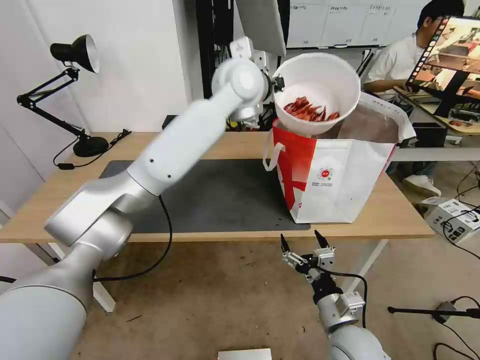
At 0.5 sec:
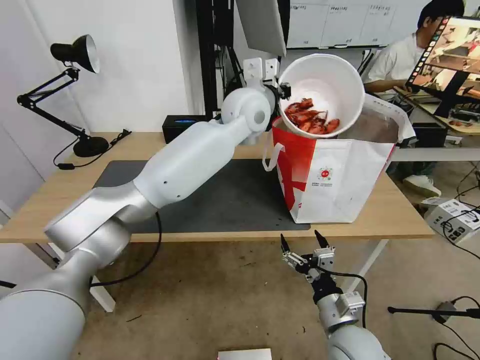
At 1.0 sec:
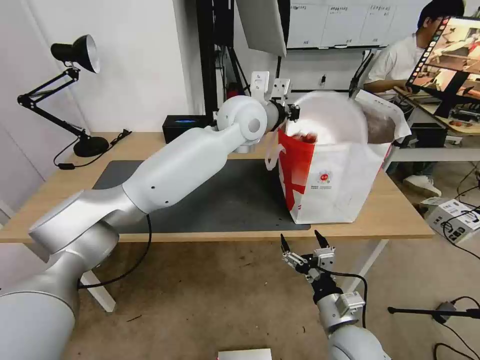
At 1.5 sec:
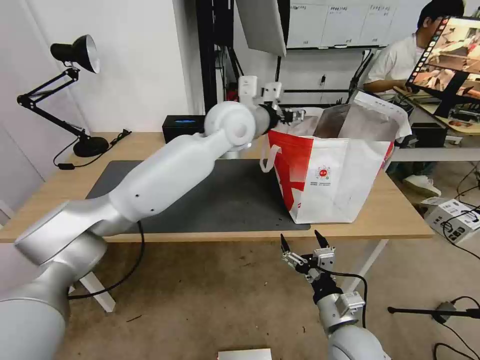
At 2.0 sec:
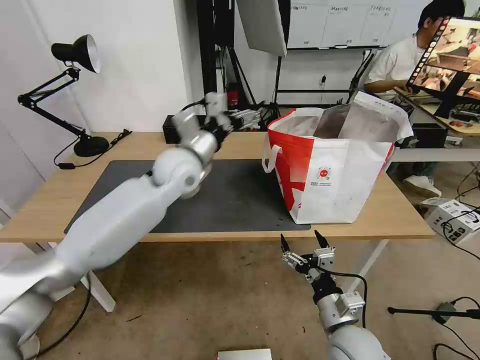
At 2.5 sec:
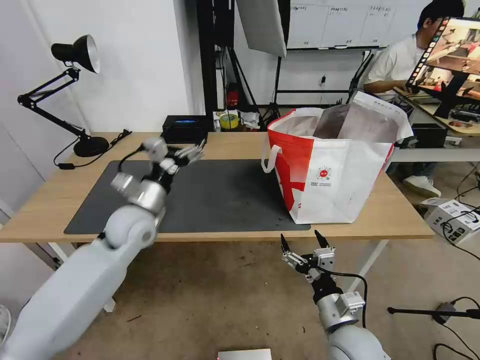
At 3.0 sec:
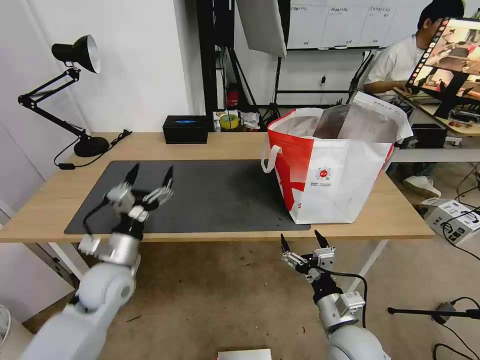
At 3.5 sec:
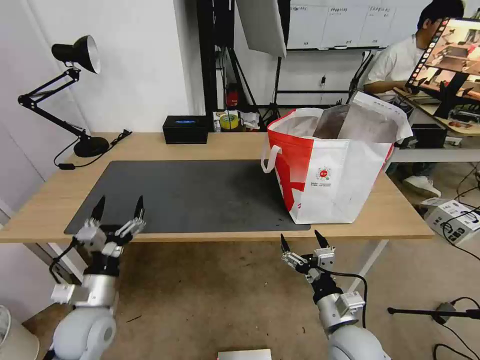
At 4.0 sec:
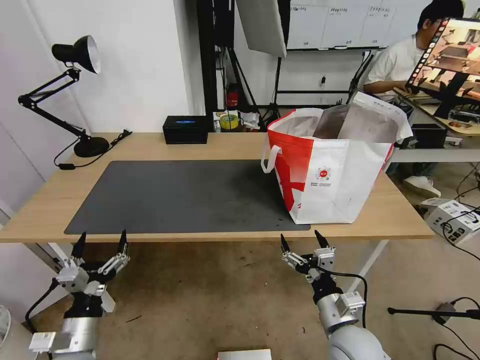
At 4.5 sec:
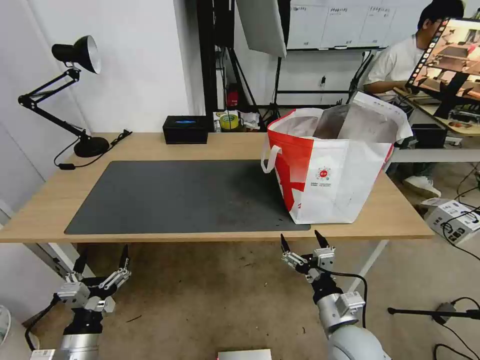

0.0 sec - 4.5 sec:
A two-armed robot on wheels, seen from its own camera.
Task of the whole recording: Pick up the trash from the table and place it into the takeout bag.
0.0 sec - 2.0 sec: The left gripper goes about 20 cm downward, to the left and backward, and opens.
2.0 sec - 4.5 sec: The left gripper travels backward, downward and to the left by approximately 50 cm.

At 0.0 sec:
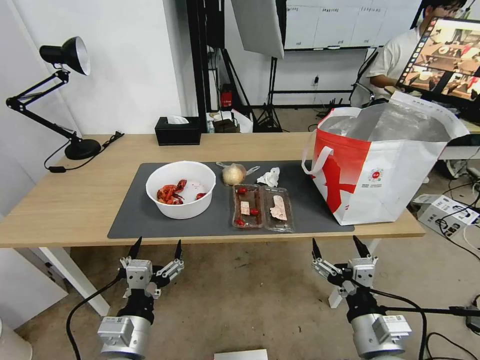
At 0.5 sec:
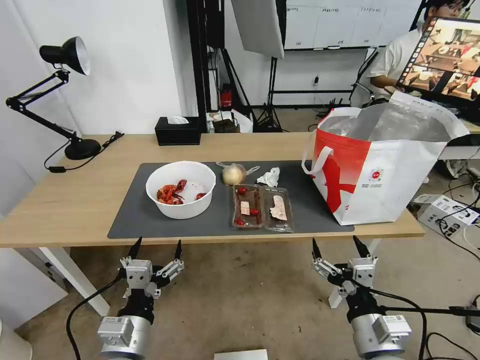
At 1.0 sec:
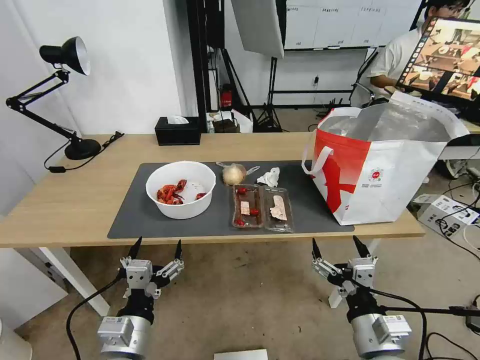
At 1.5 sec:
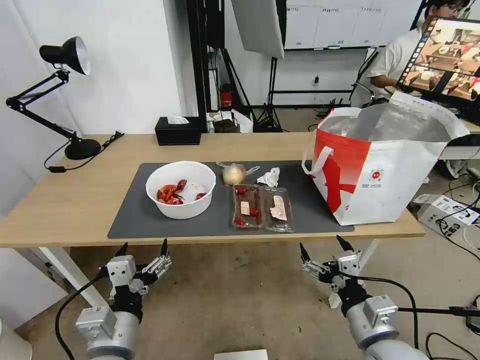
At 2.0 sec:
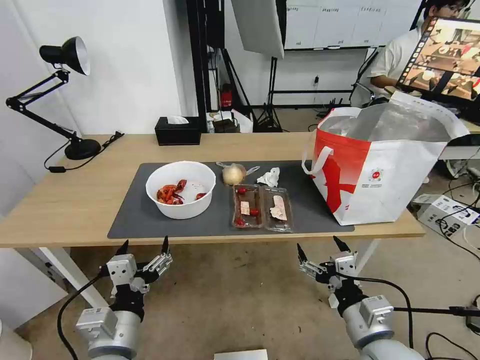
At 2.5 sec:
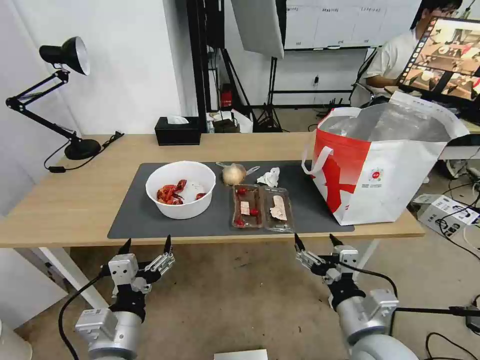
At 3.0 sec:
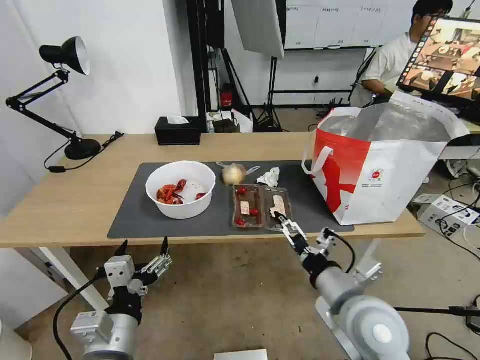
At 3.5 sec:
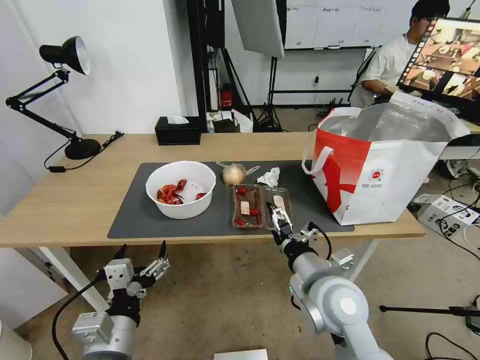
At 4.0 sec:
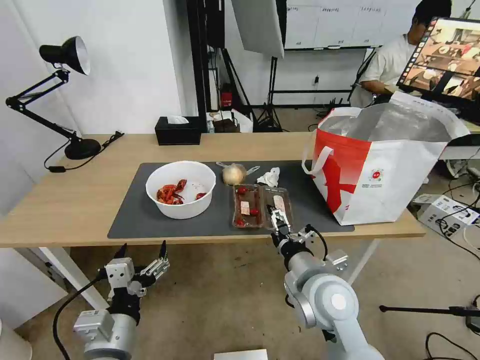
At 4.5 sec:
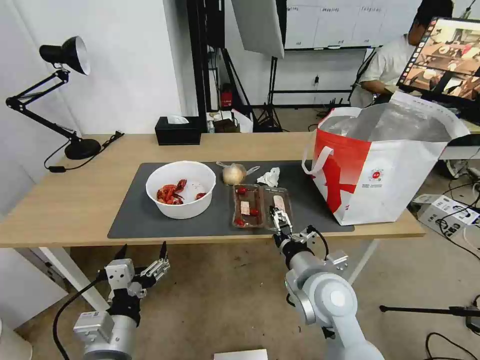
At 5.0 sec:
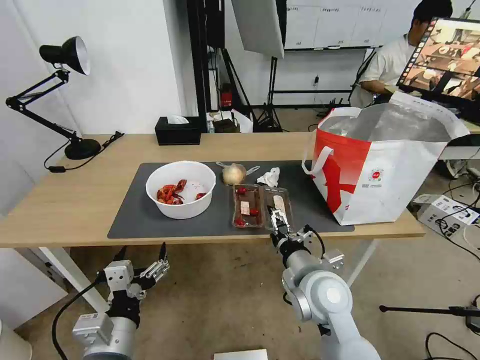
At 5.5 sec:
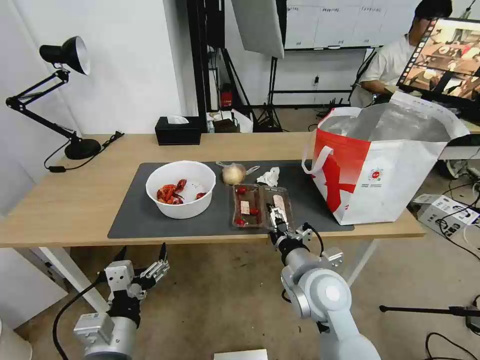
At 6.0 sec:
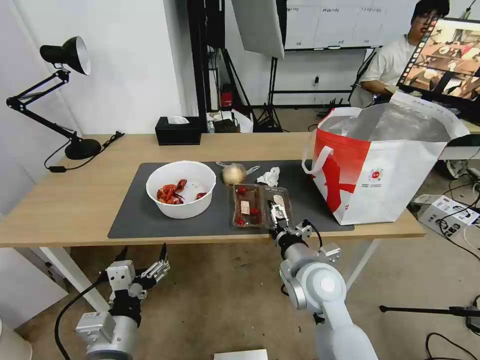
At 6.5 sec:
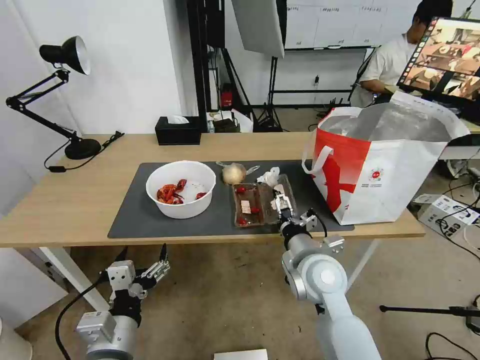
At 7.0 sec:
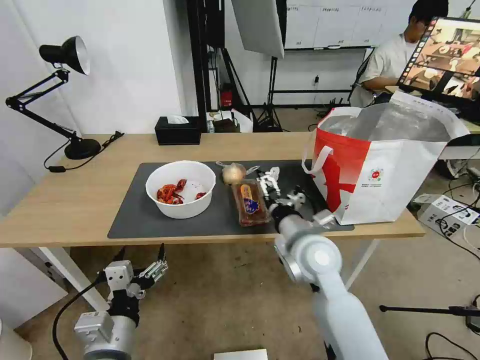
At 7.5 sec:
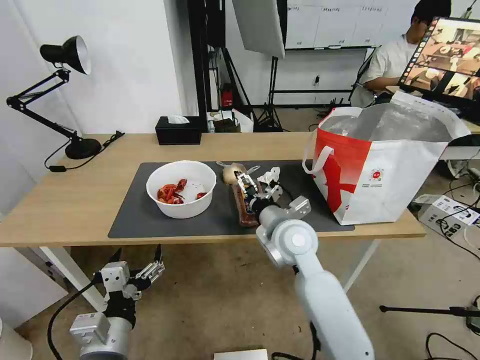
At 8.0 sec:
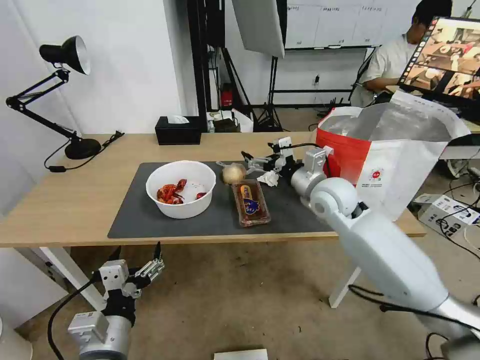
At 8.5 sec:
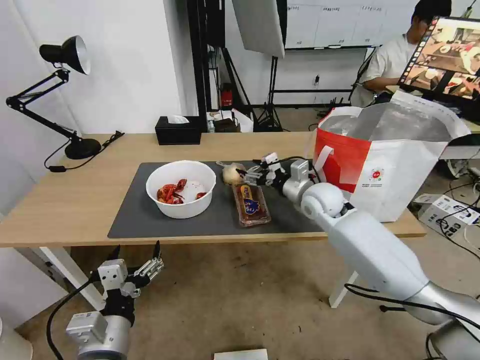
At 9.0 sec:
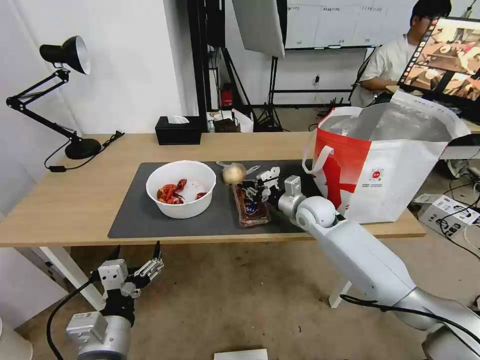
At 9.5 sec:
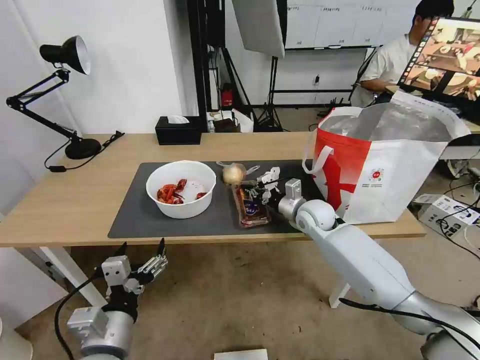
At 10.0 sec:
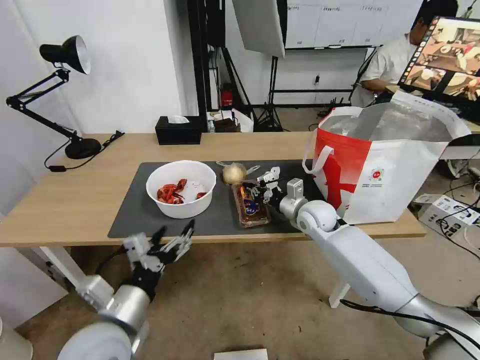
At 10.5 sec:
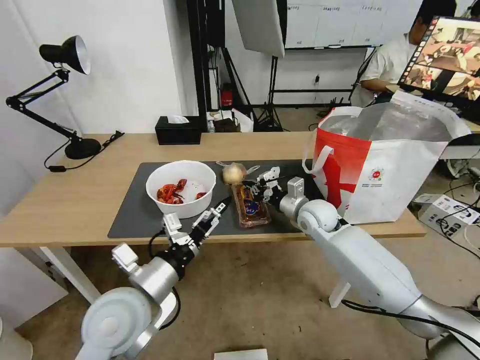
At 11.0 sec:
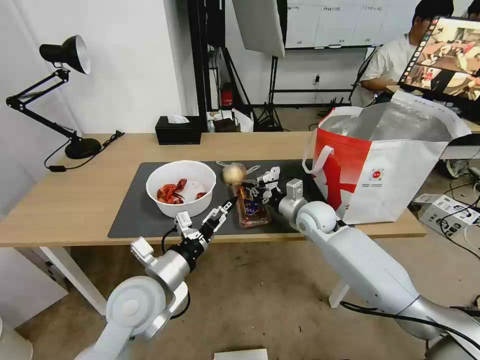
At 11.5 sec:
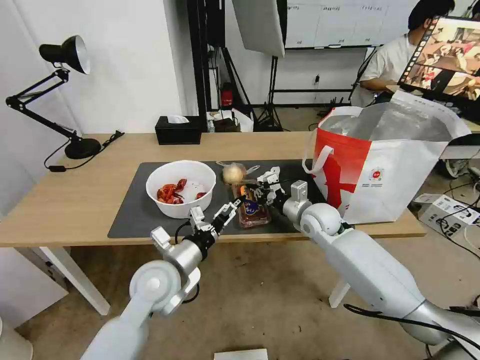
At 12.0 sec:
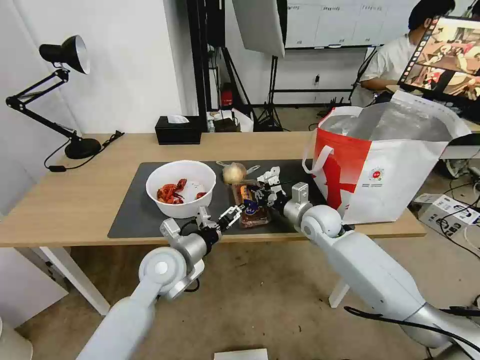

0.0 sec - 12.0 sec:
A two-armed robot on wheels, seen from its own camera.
Task of the whole recording: Pick up the trash from the table and place it into the takeout bag.
2.0 sec - 4.0 sec: The right gripper is displaced forward and to the left by approximately 15 cm.
4.0 sec - 6.0 sec: The grippers make only small movements.
6.0 sec - 8.0 sec: The right gripper shifts approximately 20 cm forward and upward.
8.0 sec - 10.0 sec: The left gripper ends up roughly 5 cm from where it was. The right gripper is displaced downward by some 10 cm, and closes.
10.0 sec - 12.0 sec: The left gripper moves forward and to the right, approximately 15 cm.

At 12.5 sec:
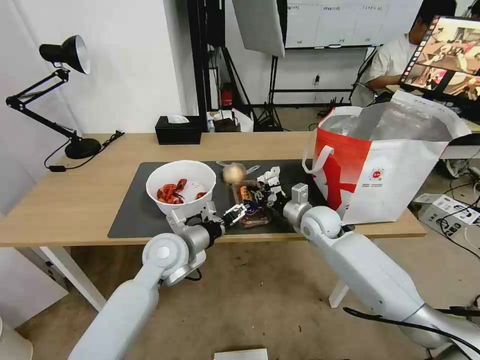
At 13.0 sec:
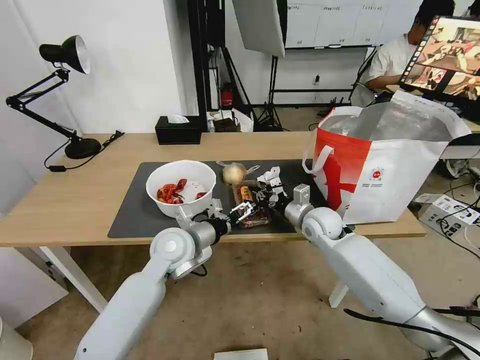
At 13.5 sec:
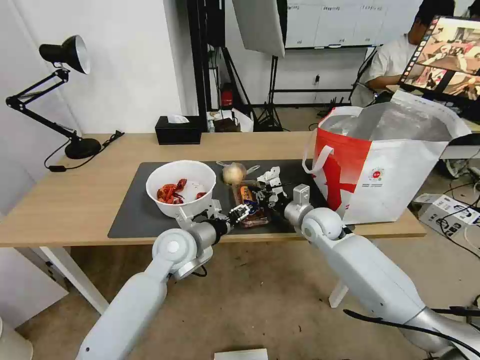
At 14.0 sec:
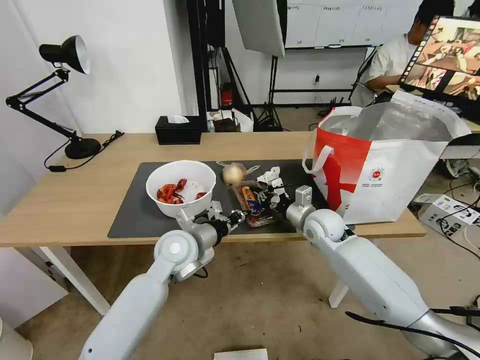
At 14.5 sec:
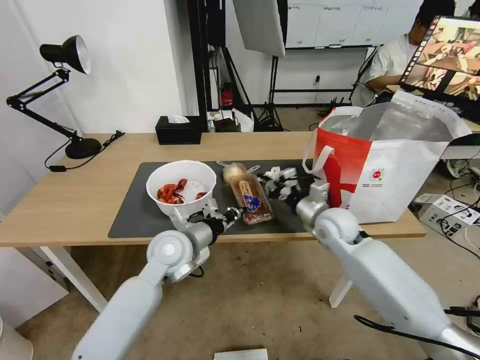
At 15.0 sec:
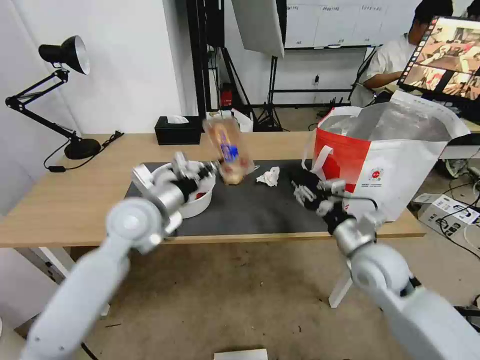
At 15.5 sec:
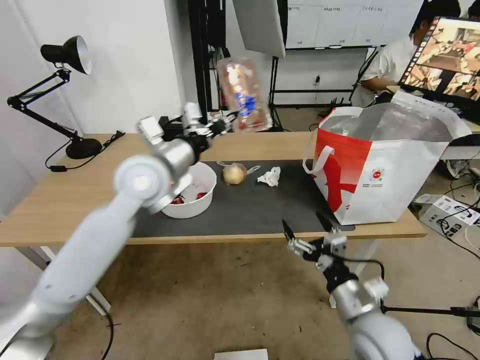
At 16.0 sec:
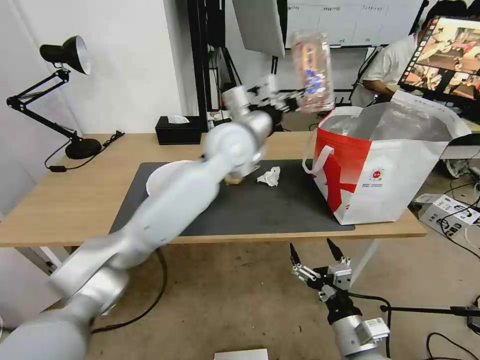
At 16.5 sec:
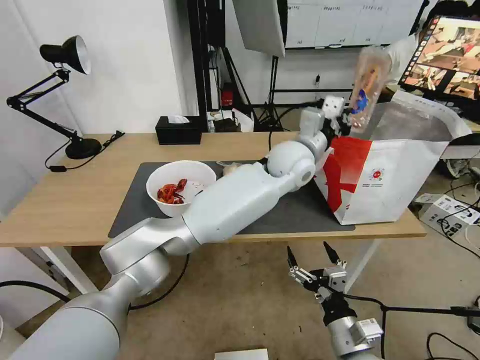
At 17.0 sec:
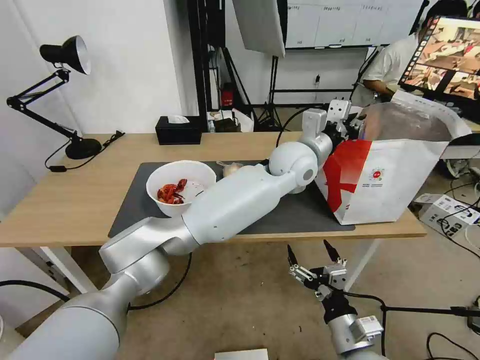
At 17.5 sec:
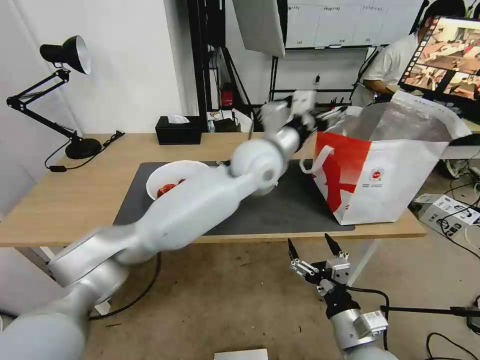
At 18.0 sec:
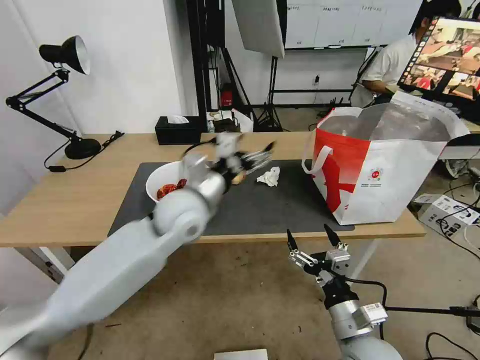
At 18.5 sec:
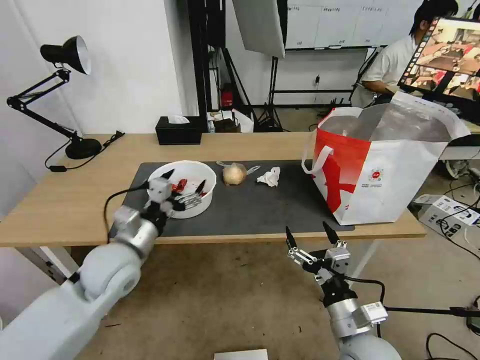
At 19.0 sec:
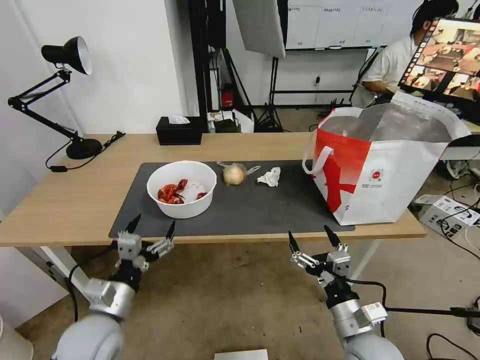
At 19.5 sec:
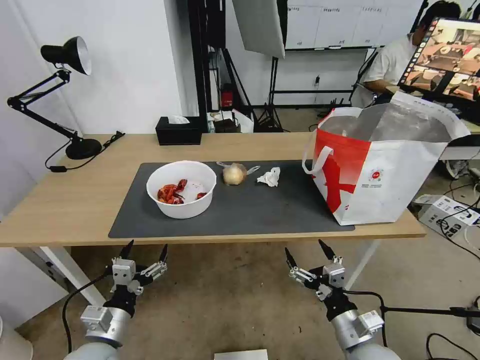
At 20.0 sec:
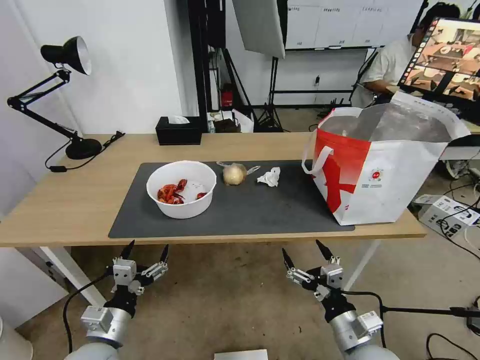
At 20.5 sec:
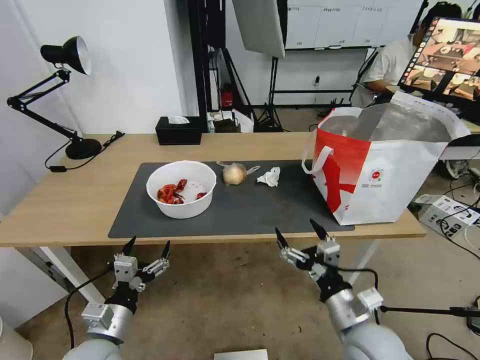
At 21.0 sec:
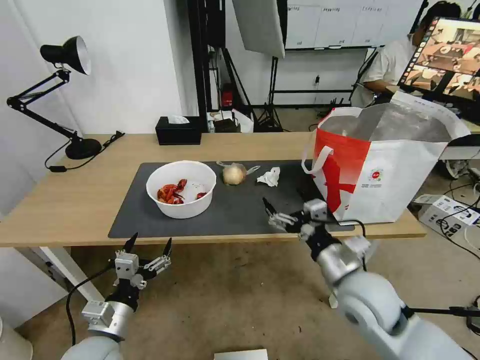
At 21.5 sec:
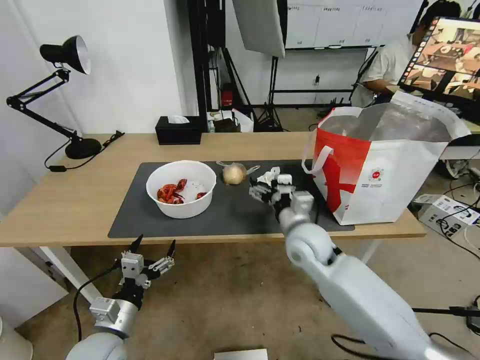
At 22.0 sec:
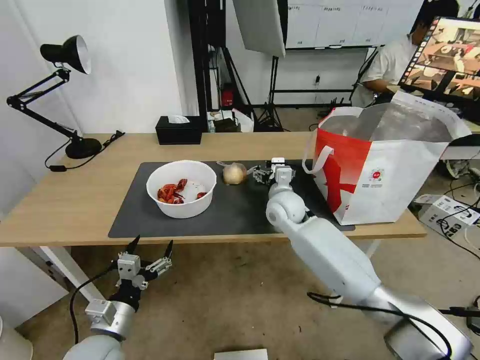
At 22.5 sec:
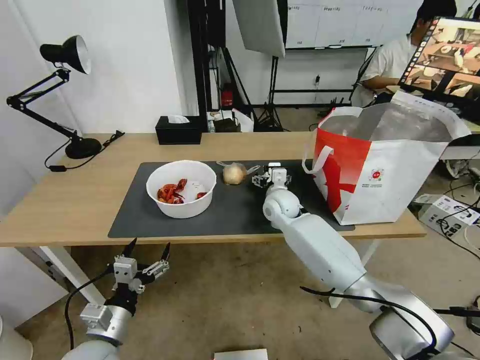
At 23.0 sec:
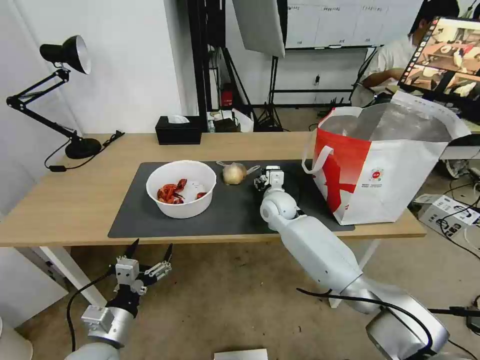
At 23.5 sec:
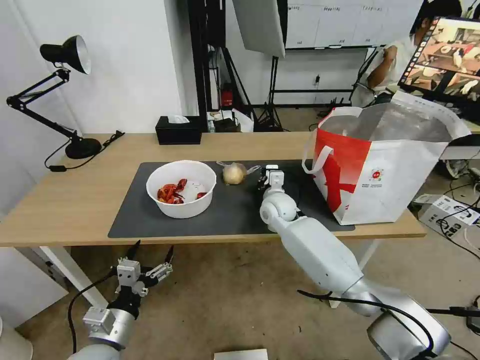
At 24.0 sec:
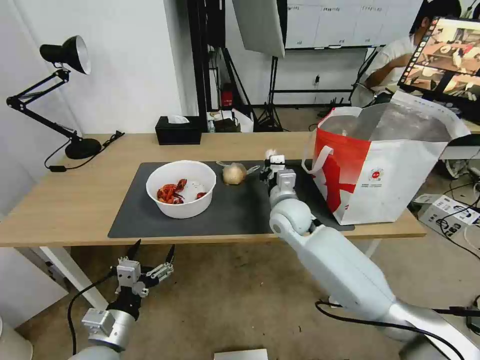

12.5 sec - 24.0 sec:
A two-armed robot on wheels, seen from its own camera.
Task of the whole recording: Pick up the trash from the table and place it into the takeout bag.
12.5 sec - 14.5 sec: The right gripper shifts by some 5 cm. Meanwhile the left gripper closes its fingers.
14.5 sec - 16.5 sec: The left gripper moves to the right, upward and forward, some 30 cm, while the right gripper moves backward, about 30 cm, and opens.
16.5 sec - 18.5 sec: The left gripper heads to the left and backward, covering roughly 40 cm, and opens its fingers.
18.5 sec - 20.0 sec: The left gripper heads backward and downward, covering approximately 20 cm.
20.0 sec - 22.0 sec: The right gripper goes some 35 cm forward.
22.0 sec - 24.0 sec: The right gripper shifts roughly 5 cm backward, and closes.
